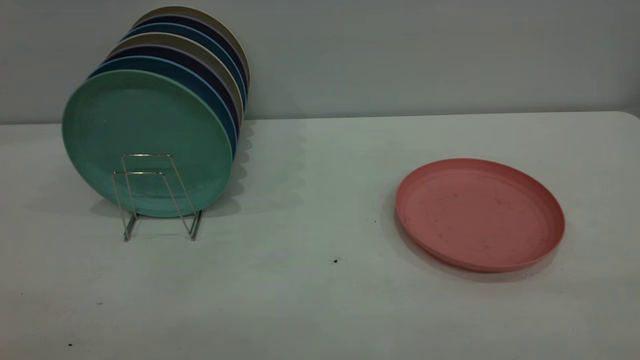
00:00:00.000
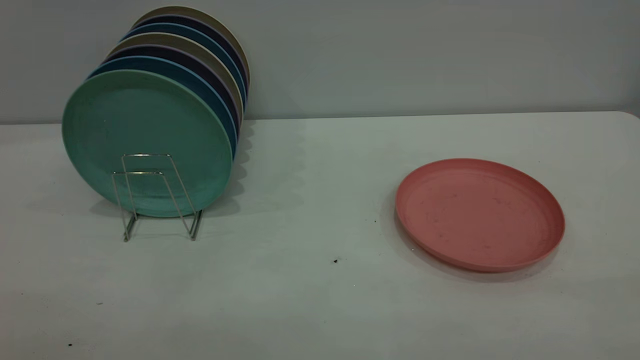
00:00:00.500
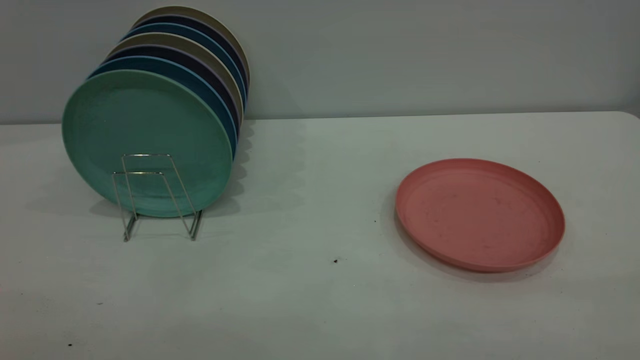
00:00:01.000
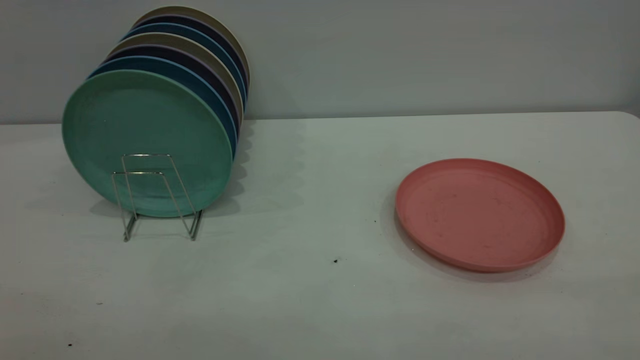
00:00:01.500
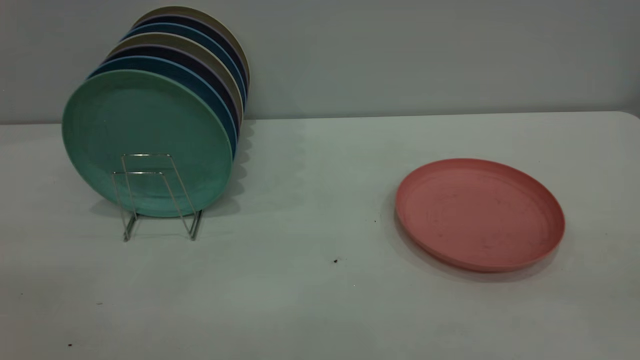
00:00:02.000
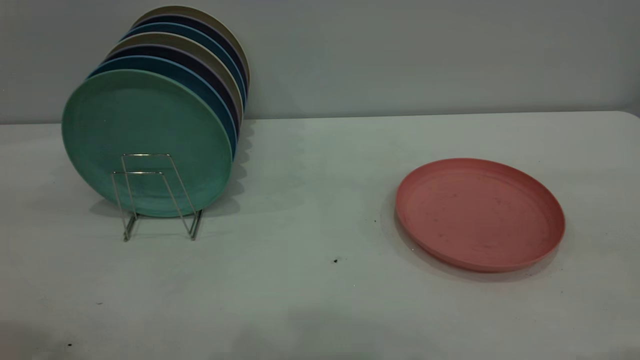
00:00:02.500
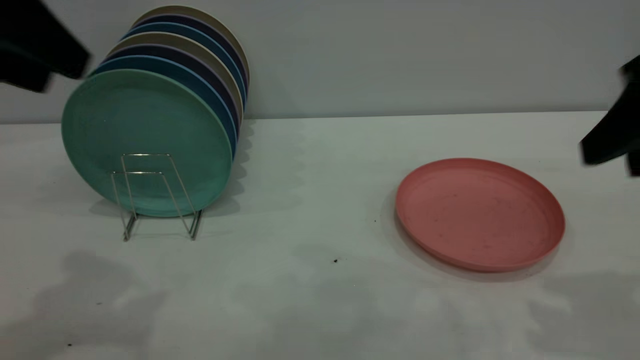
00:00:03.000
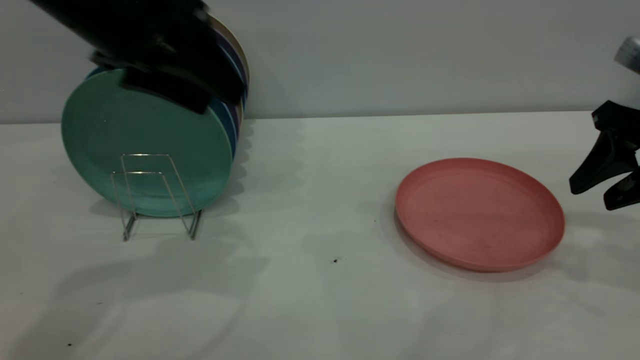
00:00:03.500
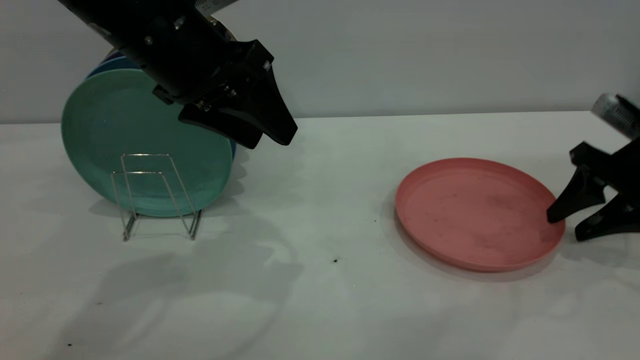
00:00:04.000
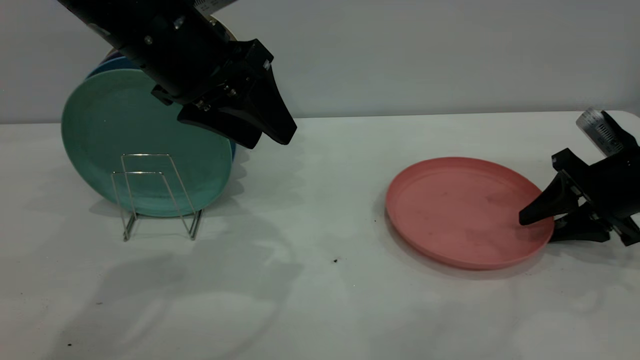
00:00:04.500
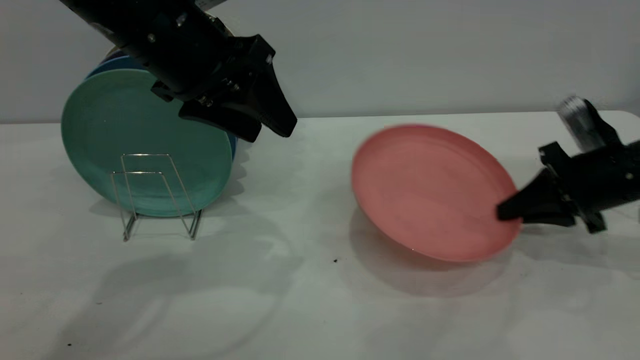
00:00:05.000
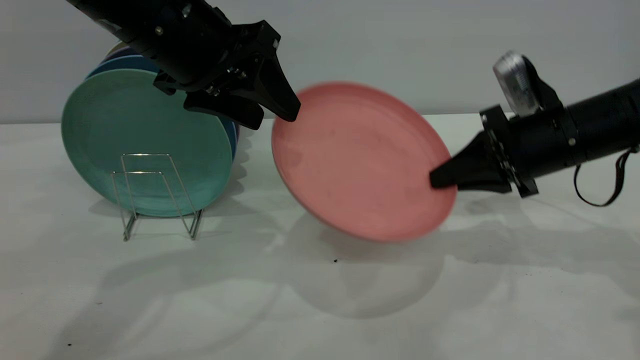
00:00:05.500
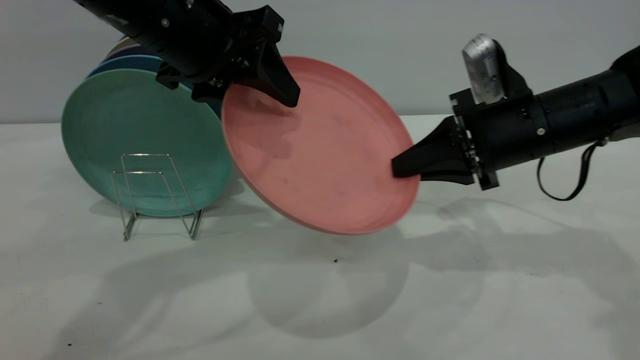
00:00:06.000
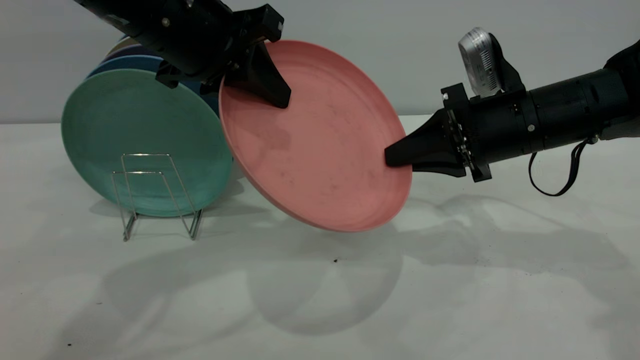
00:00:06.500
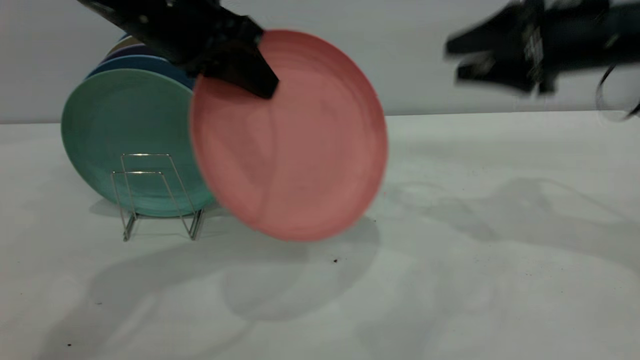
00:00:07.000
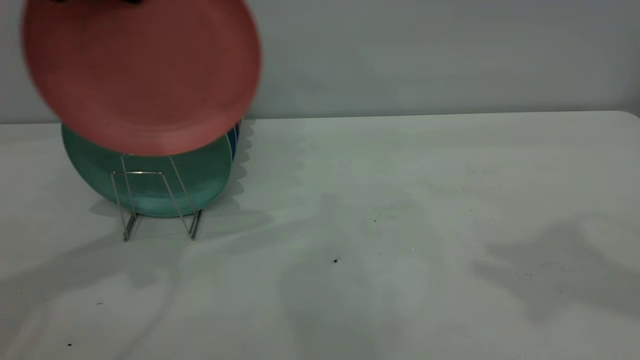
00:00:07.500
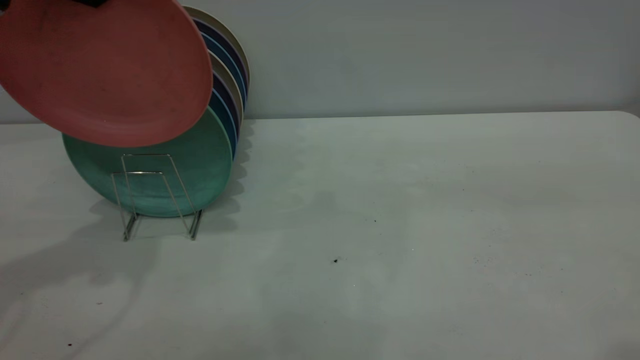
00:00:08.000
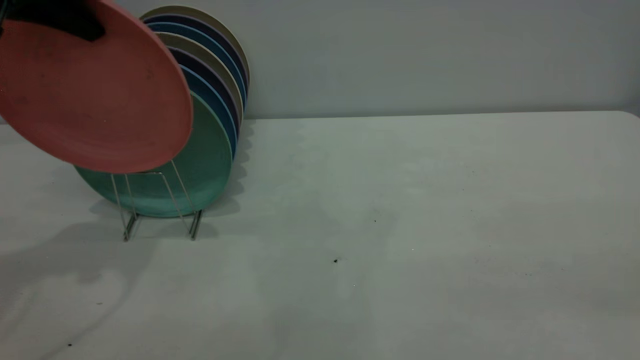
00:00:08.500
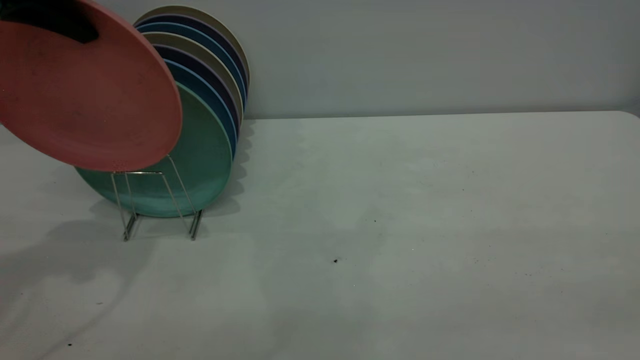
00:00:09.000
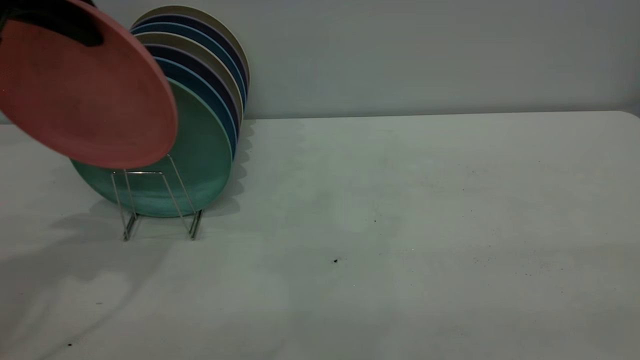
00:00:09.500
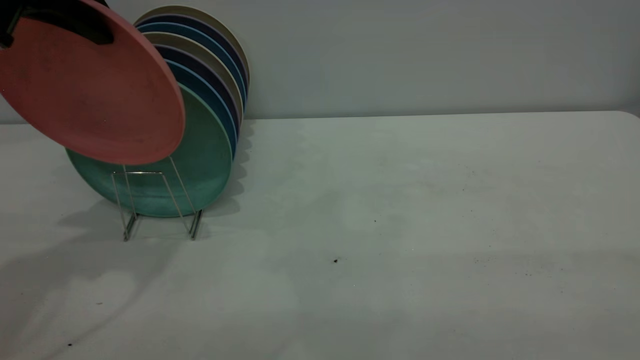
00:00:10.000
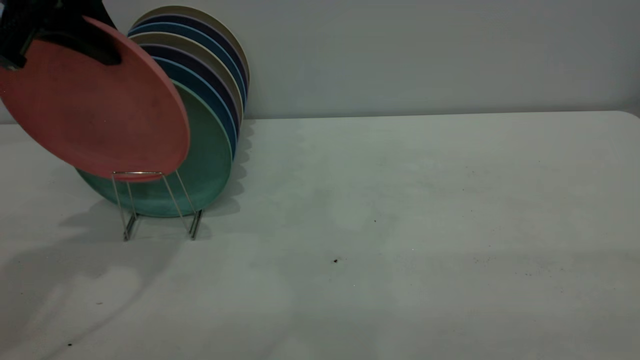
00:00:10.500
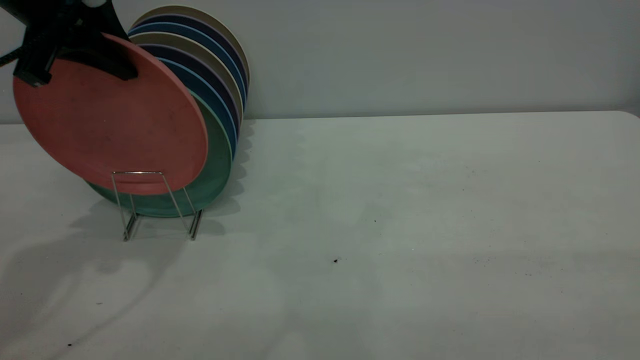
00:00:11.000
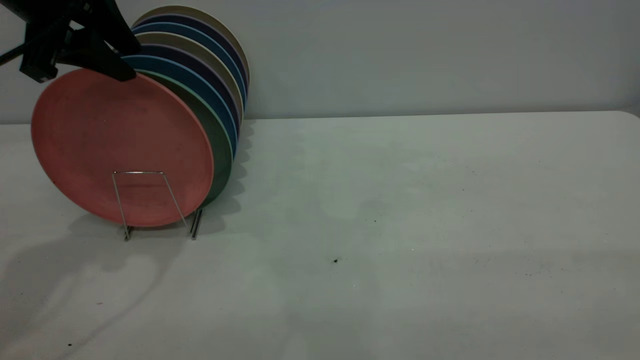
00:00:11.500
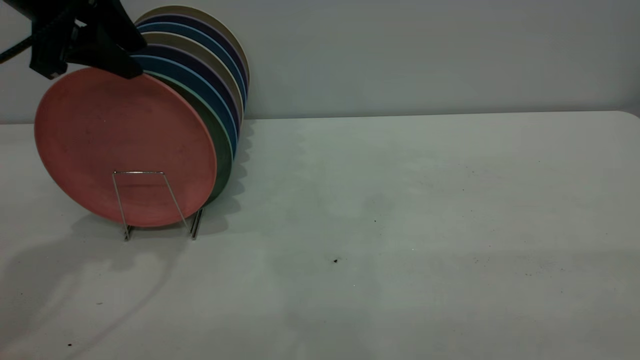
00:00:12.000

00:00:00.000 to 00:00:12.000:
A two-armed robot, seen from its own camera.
Task of the whole recording: the right gripper grasp the pink plate, the right gripper pass the pink plate to the left gripper, and the left gripper place the pink plate on the plate rack.
Step, 00:00:00.000 to 00:00:04.500: Pick up the plate with the right gripper.
Step, 00:00:05.000 to 00:00:07.000: Pass the plate from the right gripper to the left gripper.
00:00:02.000 to 00:00:04.000: The left gripper travels forward, to the right and downward by roughly 35 cm; the right gripper goes roughly 40 cm forward and downward.
00:00:04.000 to 00:00:06.000: The right gripper is displaced to the left by some 15 cm, and closes its fingers.
00:00:06.000 to 00:00:08.000: The left gripper heads to the left and upward, covering approximately 15 cm, and closes its fingers. Meanwhile the right gripper is displaced upward and backward by about 35 cm, and opens its fingers.
00:00:10.000 to 00:00:12.000: The left gripper opens.

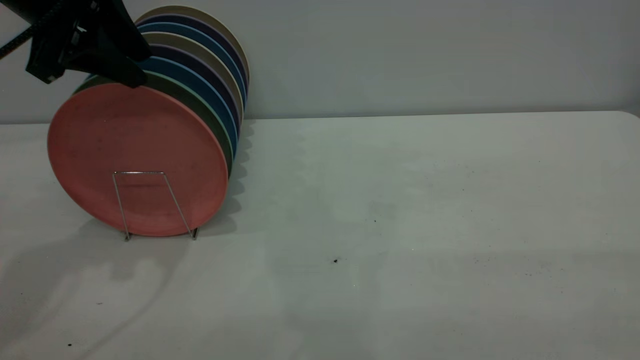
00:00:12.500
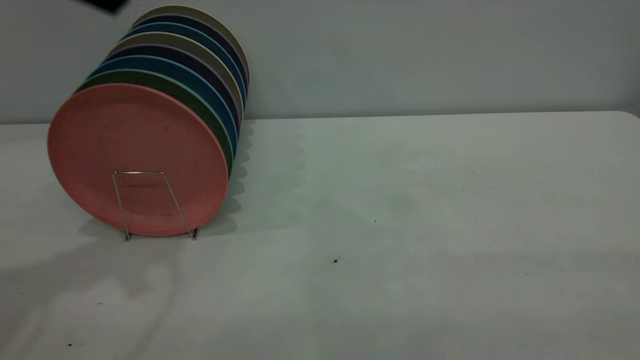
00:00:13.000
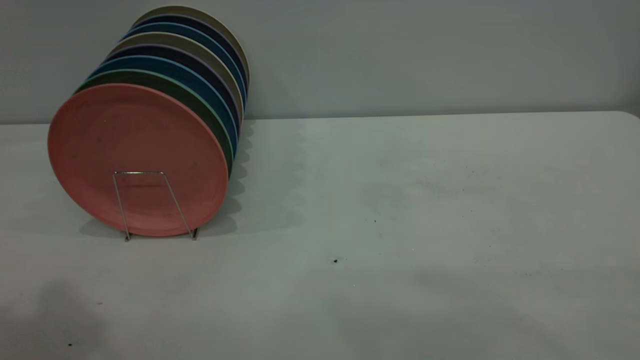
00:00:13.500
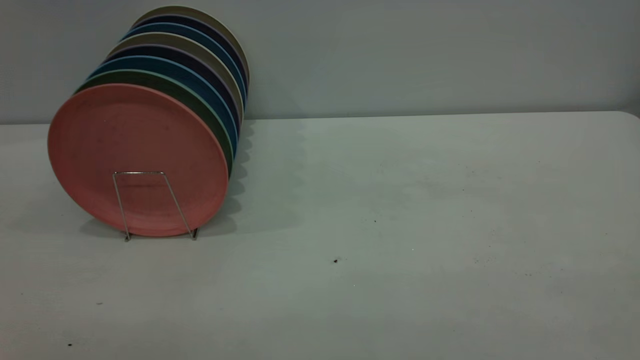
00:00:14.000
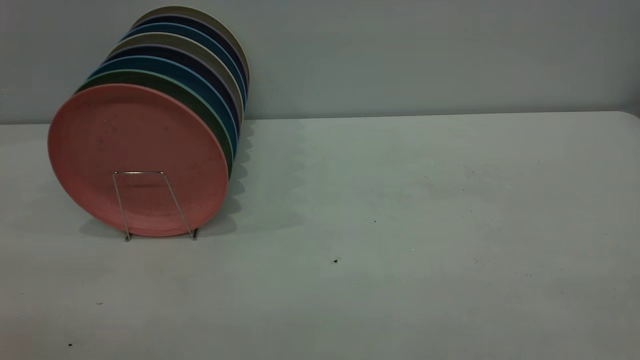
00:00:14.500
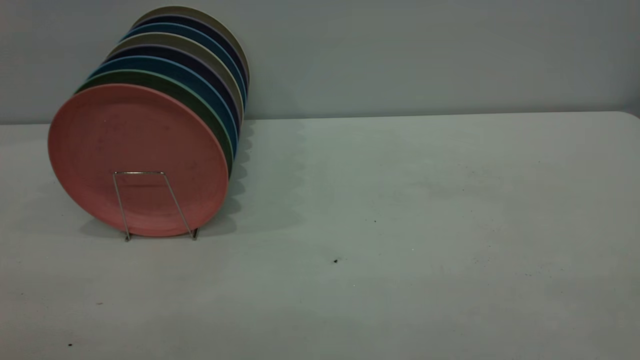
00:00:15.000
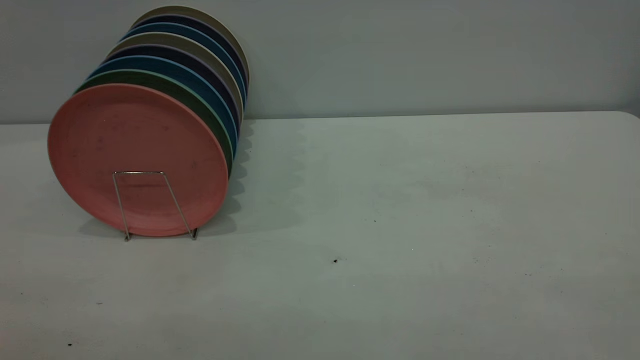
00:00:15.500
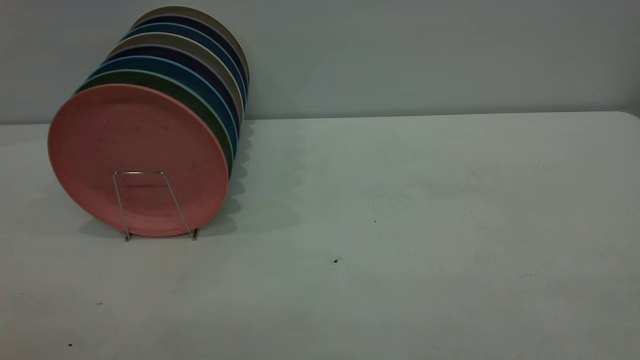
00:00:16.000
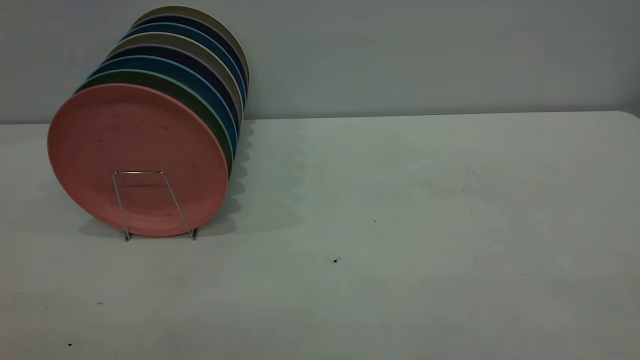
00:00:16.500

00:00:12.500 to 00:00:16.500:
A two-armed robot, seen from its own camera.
Task of the whole recording: the right gripper grasp the pink plate, the right gripper pass the pink plate to the left gripper, and the left gripper place the pink plate on the plate rack.
00:00:12.500 to 00:00:14.500: The left gripper travels backward by approximately 35 cm.
